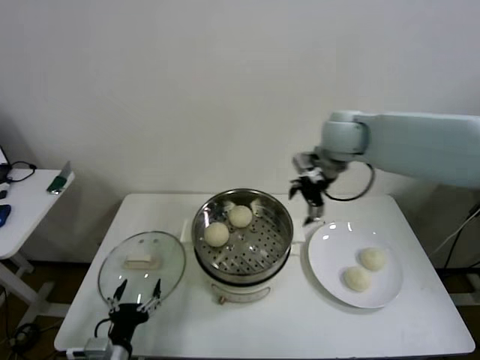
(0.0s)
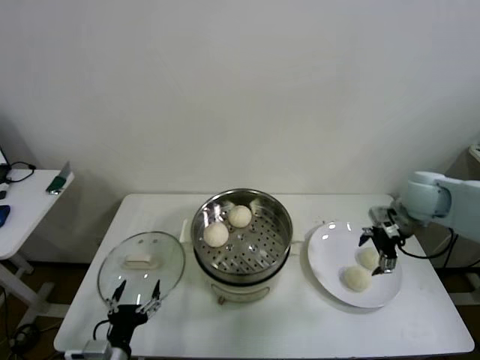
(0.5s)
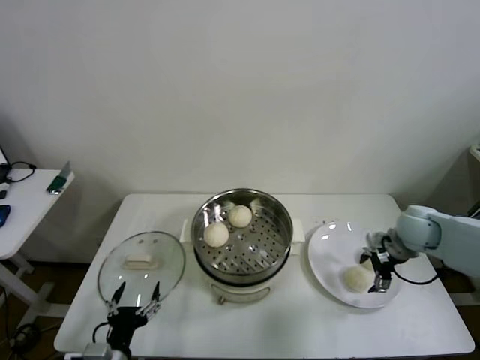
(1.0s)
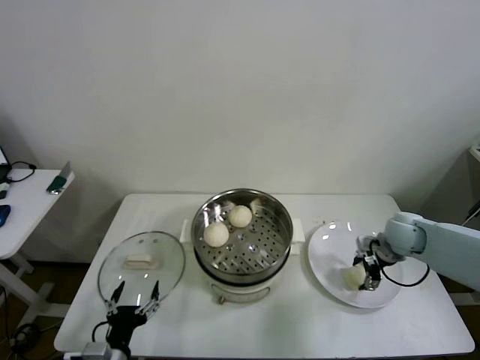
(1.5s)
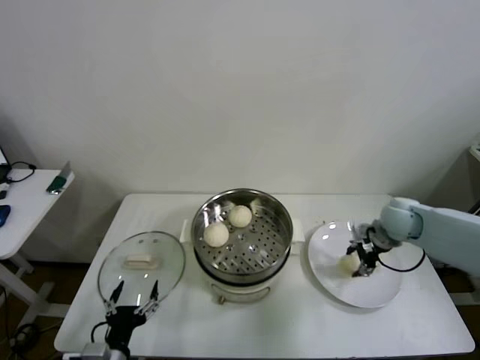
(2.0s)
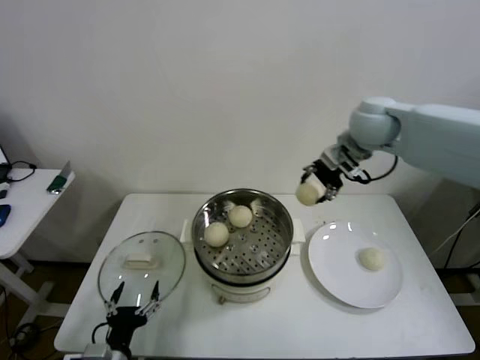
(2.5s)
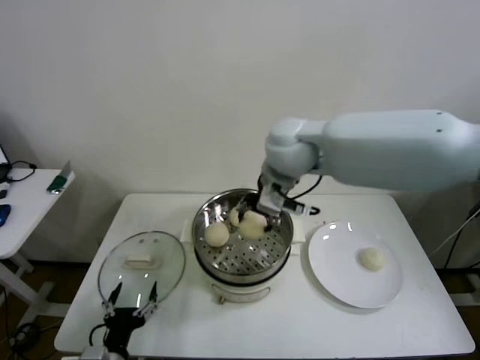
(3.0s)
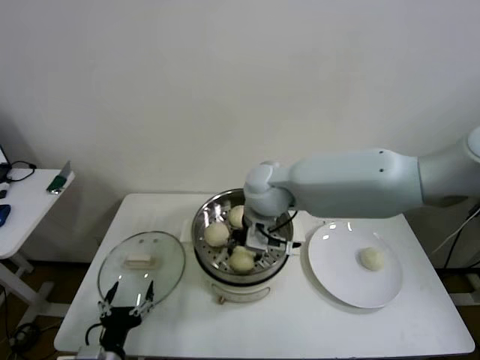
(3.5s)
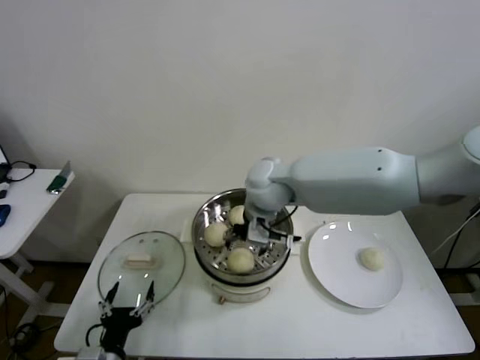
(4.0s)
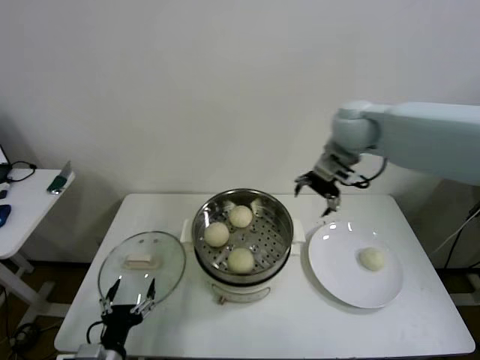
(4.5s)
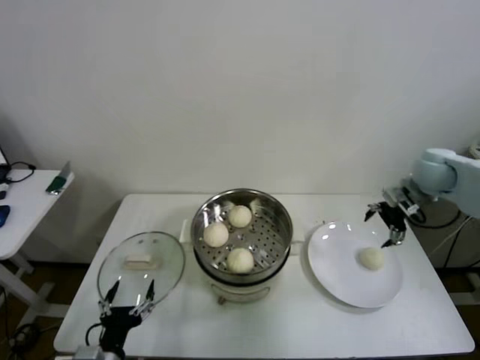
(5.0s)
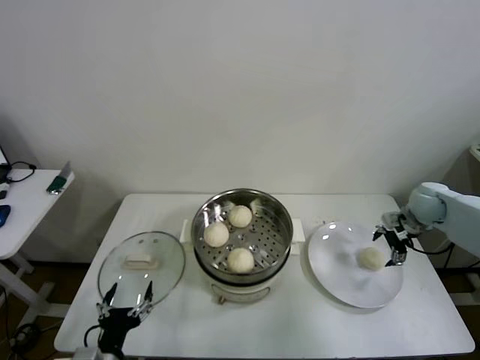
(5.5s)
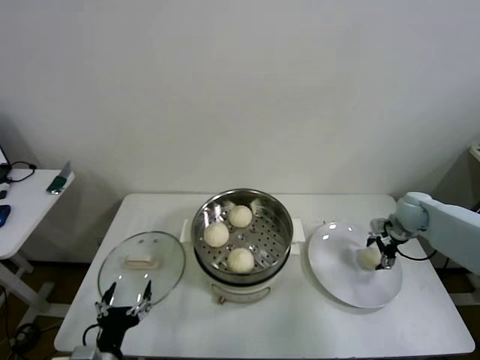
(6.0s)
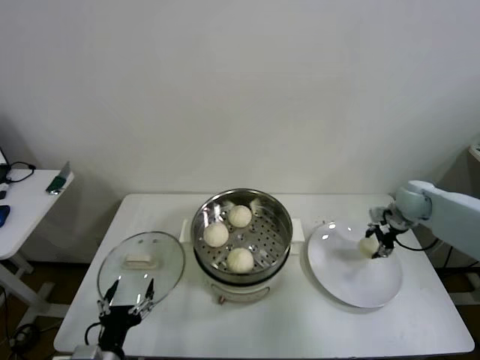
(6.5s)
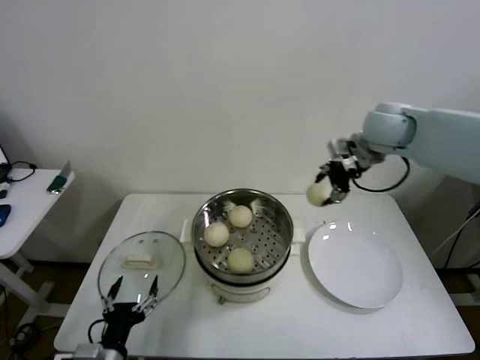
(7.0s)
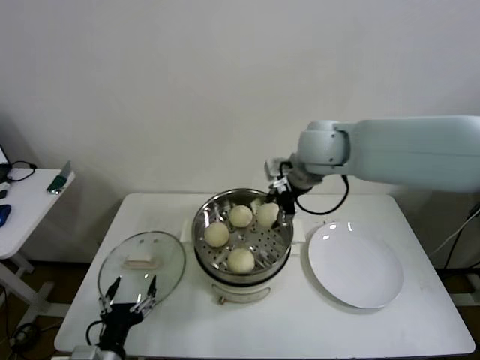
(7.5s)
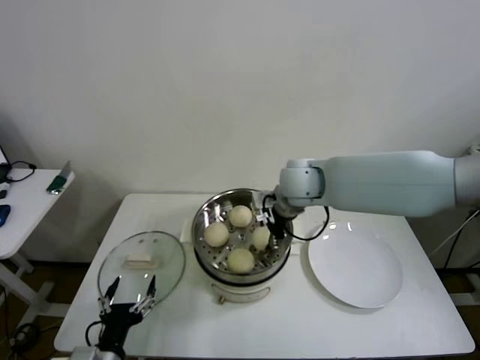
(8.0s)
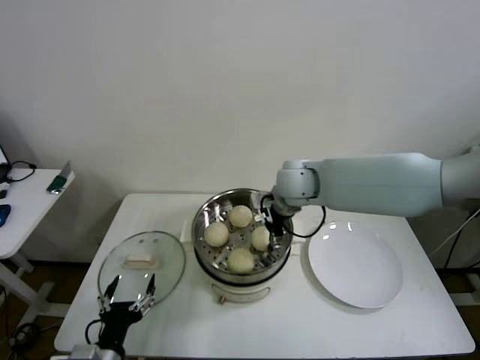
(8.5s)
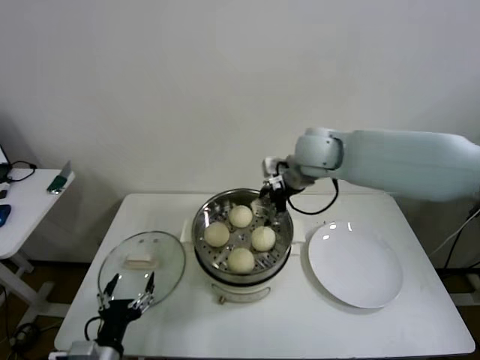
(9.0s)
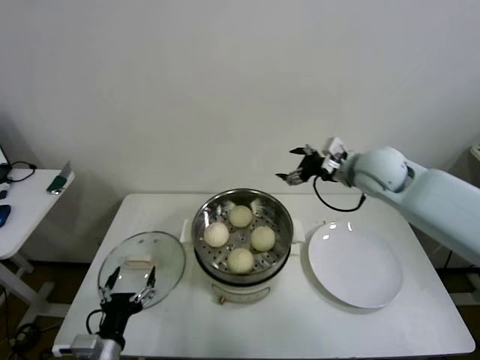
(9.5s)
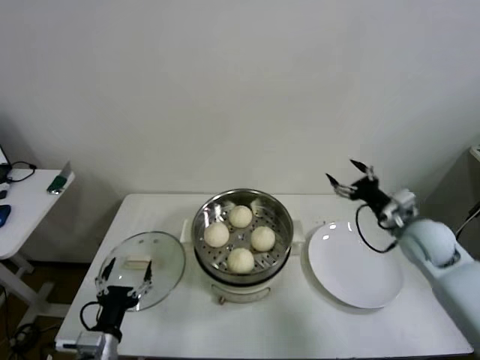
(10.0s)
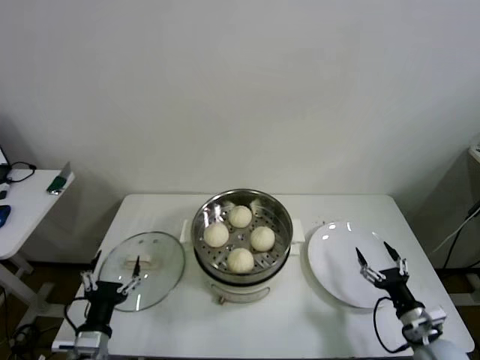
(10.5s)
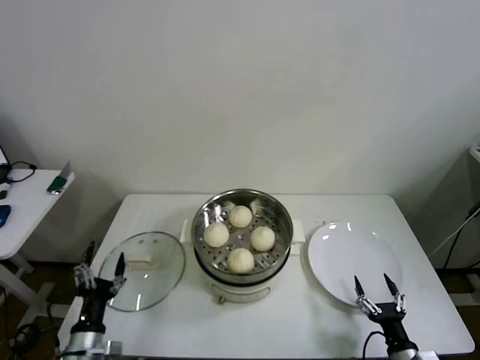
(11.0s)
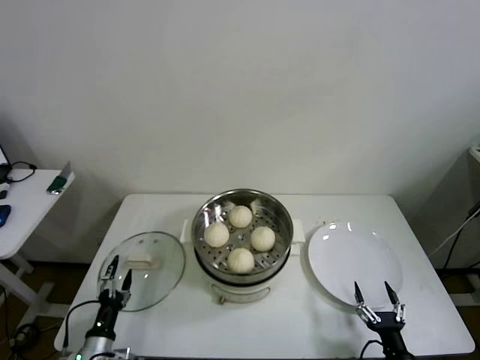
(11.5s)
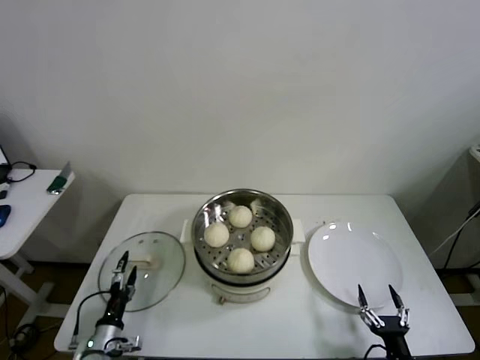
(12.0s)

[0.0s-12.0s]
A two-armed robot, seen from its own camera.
Step, 0.0s to 1.5s: Grasp the baozi in the plate with right gripper.
Step, 2.0s to 4.0s: Place the baozi on the steamer with right gripper.
Step, 4.5s to 6.0s: Grasp the baozi in the plate with right gripper.
Step, 6.5s to 8.5s: Place the baozi on the steamer with right gripper.
0.0s to 2.0s: The right gripper goes about 20 cm downward and to the right, and closes up.
2.0s to 4.0s: The right gripper heads to the left, covering about 30 cm, and opens.
4.0s to 6.0s: The right gripper travels to the right and downward by about 40 cm.
6.0s to 8.0s: The right gripper heads to the left and upward, covering approximately 35 cm, and closes its fingers.
8.0s to 10.0s: The right gripper is displaced to the right and downward by about 30 cm, and opens up.
10.0s to 12.0s: The left gripper heads downward and to the left, covering roughly 15 cm. The right gripper shifts approximately 35 cm backward and downward.

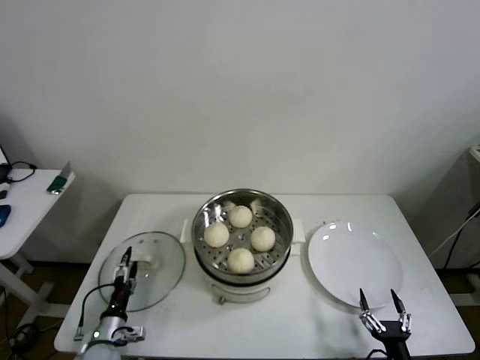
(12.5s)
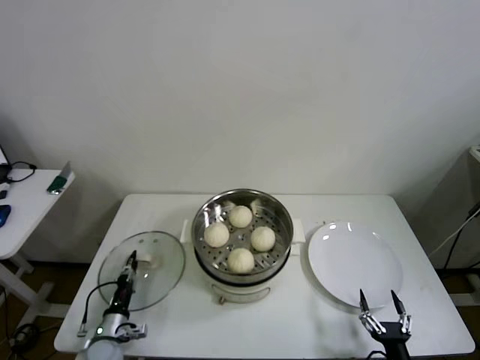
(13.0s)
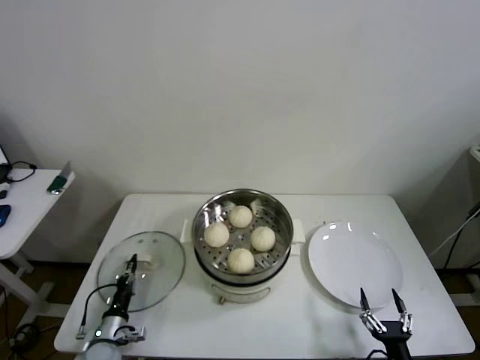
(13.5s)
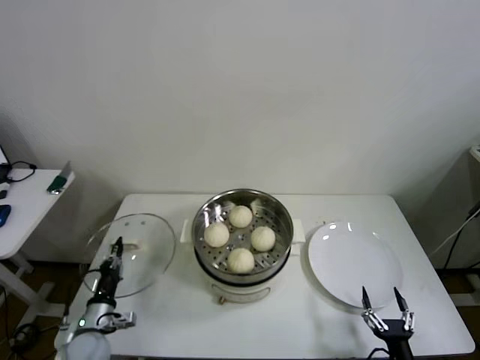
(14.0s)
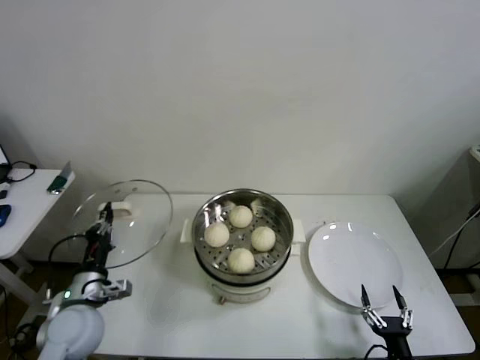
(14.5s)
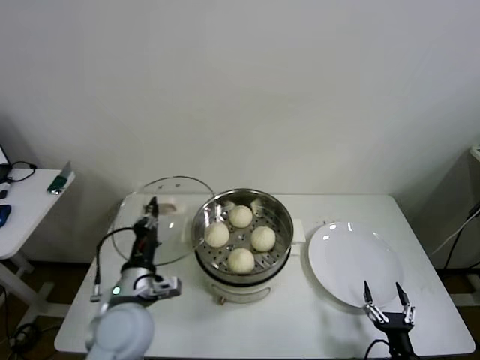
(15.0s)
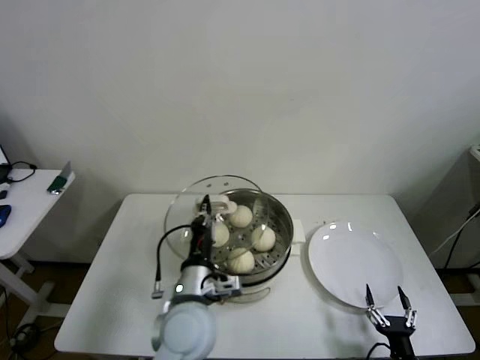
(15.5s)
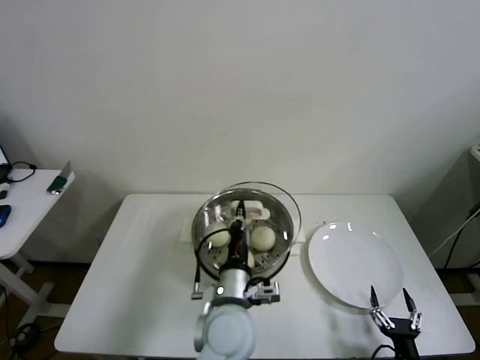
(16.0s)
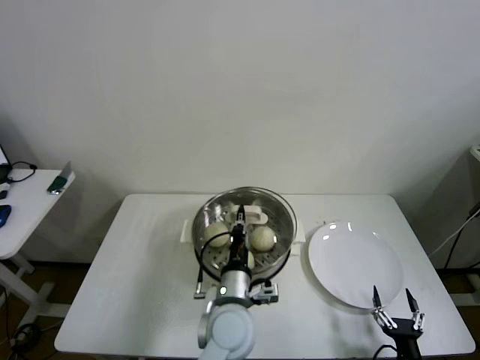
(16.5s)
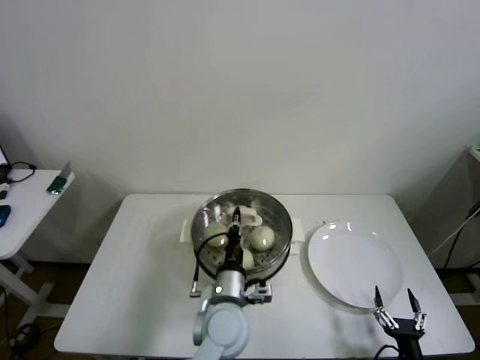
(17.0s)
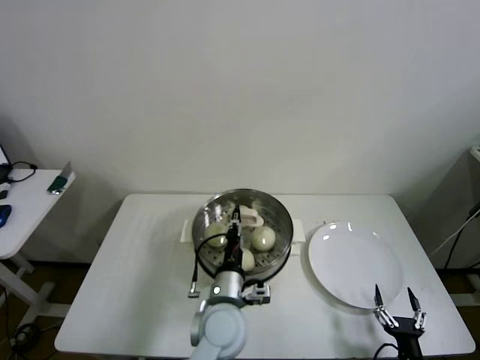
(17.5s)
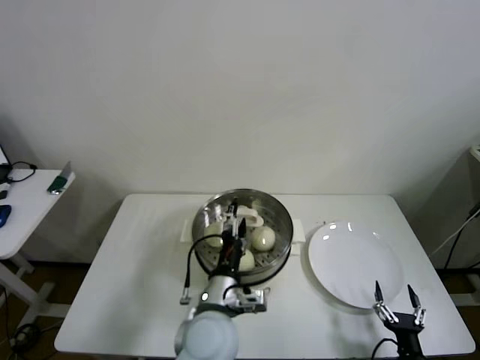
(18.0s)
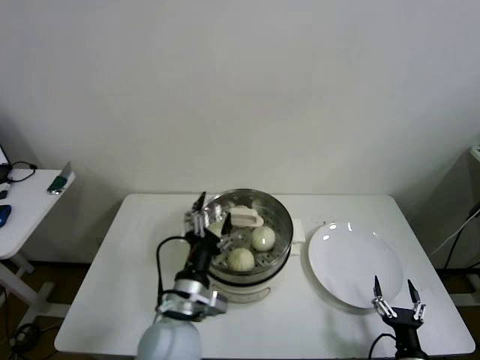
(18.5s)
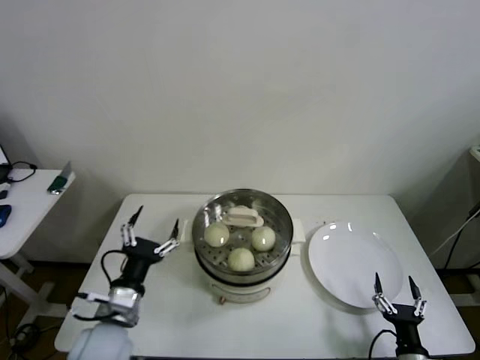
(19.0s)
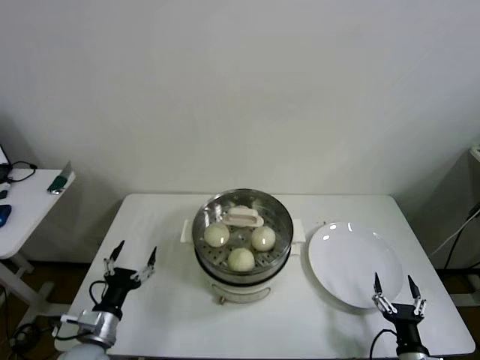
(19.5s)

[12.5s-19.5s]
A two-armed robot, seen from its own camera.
Step, 13.5s to 18.0s: Place the pot lid on the steamer with left gripper.
12.5s to 14.5s: The left gripper goes about 20 cm upward, and closes its fingers.
14.5s to 16.0s: The left gripper heads to the right, covering about 30 cm.
16.0s to 17.5s: The left gripper ends up roughly 5 cm from where it was.
17.5s to 19.5s: The left gripper goes approximately 30 cm to the left, and opens up.

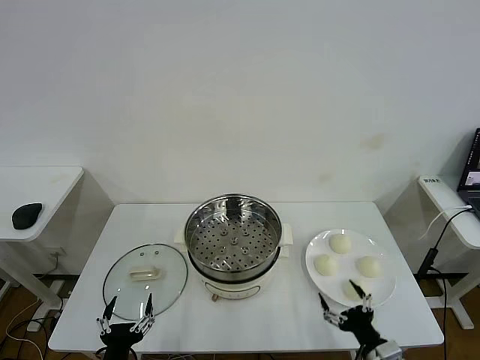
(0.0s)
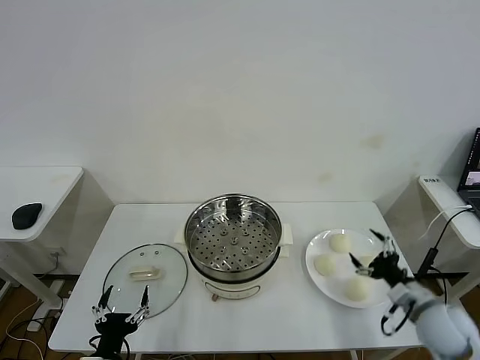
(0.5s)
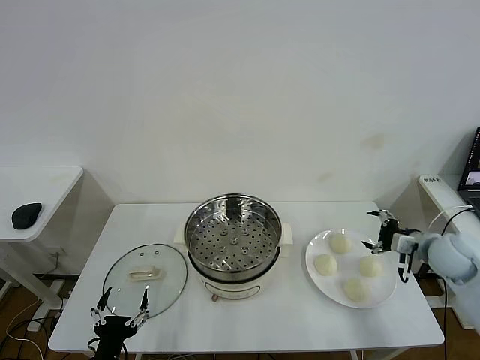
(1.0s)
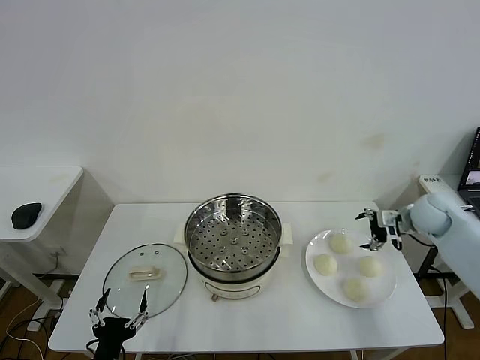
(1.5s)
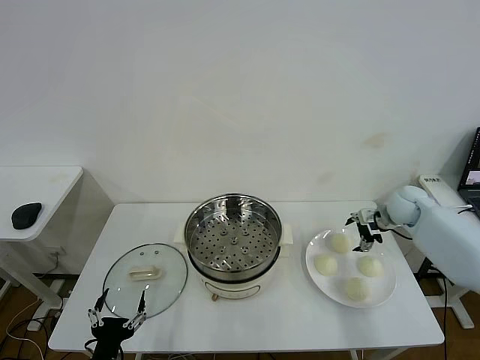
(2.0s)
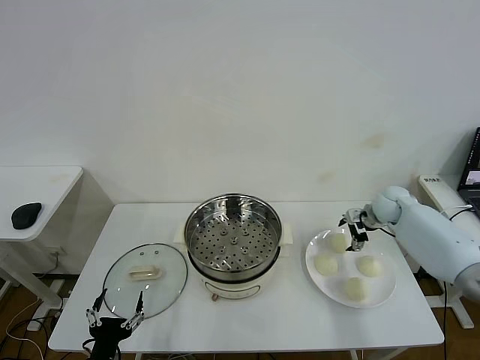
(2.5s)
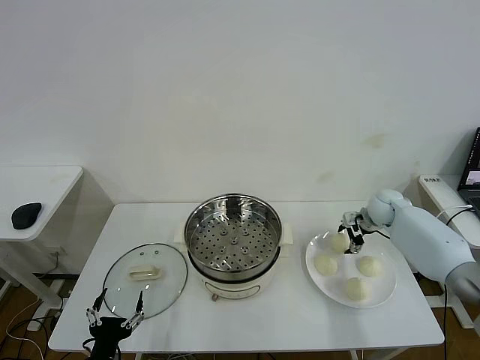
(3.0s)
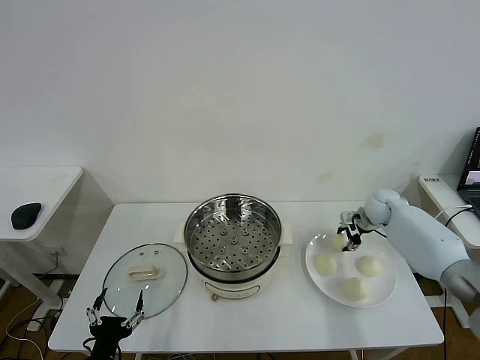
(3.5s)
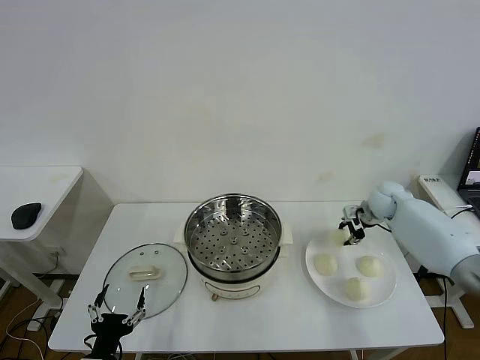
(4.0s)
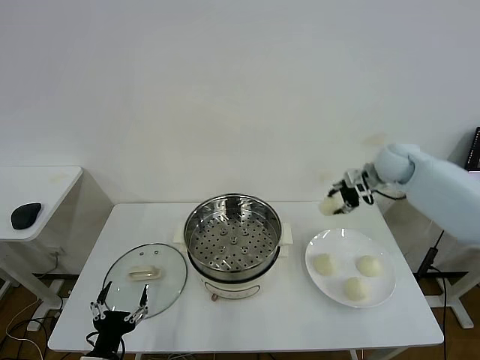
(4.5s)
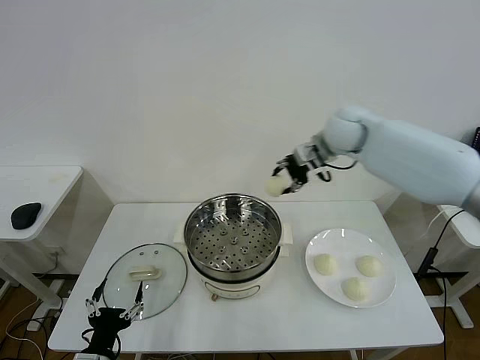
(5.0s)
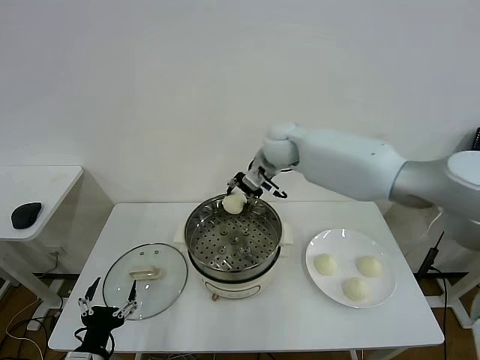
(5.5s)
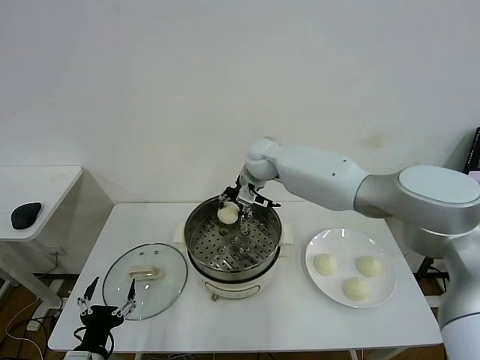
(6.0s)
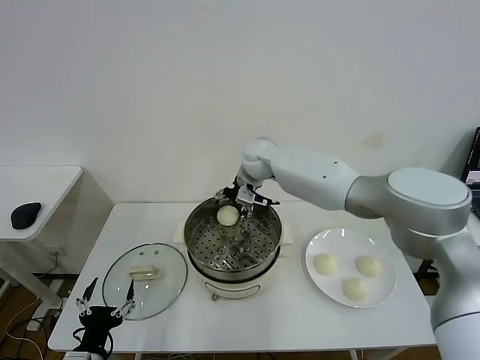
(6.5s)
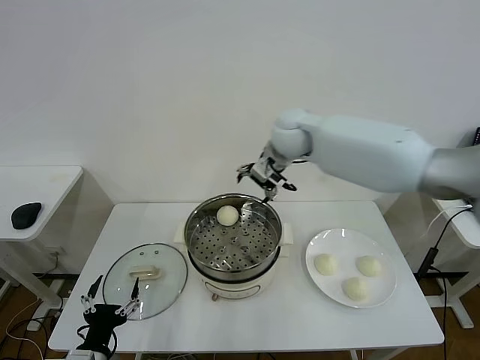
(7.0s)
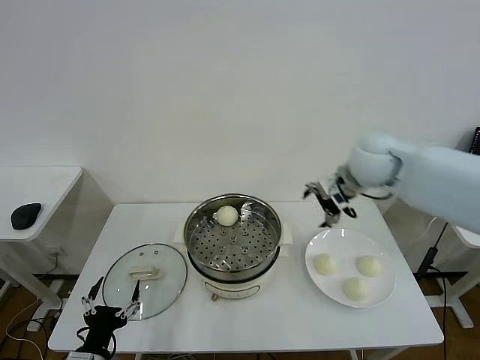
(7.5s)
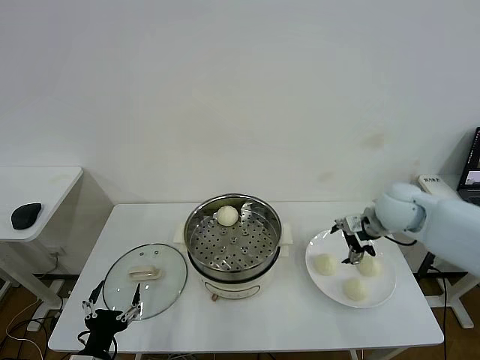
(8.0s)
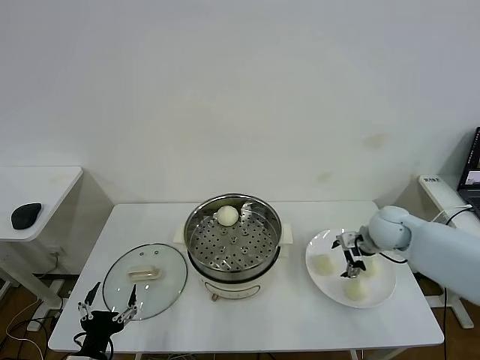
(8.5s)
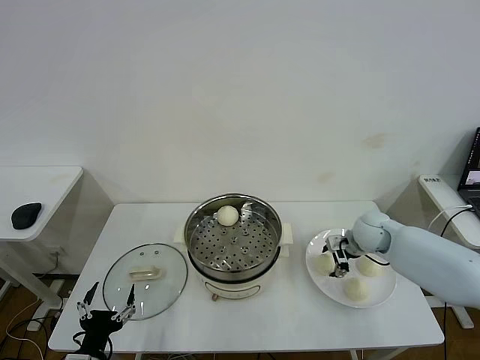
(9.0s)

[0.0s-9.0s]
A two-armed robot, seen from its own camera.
Step, 0.0s to 3.5s: Grasp the baozi in the plate with right gripper.
Step, 4.0s to 6.0s: Place the baozi on the steamer with right gripper.
2.0s to 4.5s: The right gripper is displaced upward and to the left by approximately 15 cm, and closes its fingers.
4.5s to 7.0s: The right gripper goes about 25 cm to the left, and opens.
7.0s to 9.0s: The right gripper moves downward and to the right, about 30 cm.
